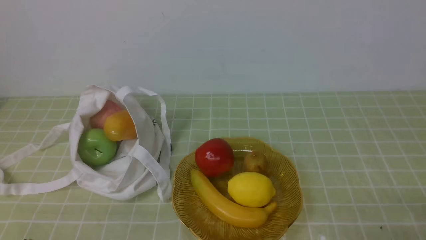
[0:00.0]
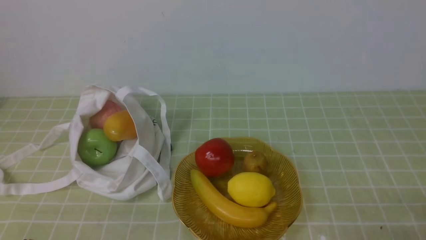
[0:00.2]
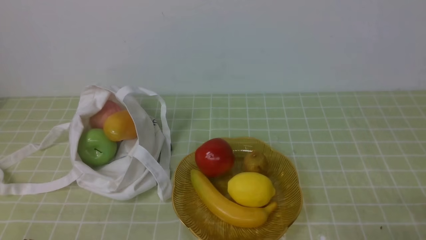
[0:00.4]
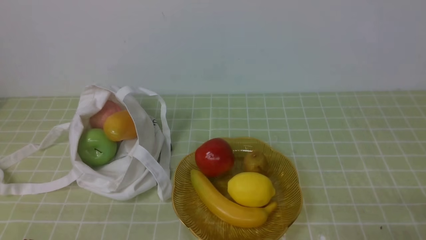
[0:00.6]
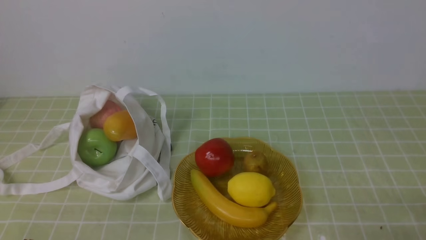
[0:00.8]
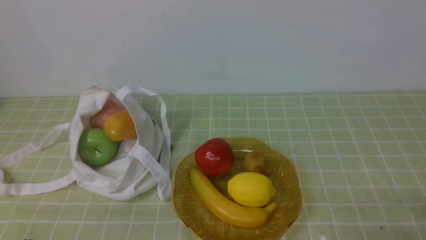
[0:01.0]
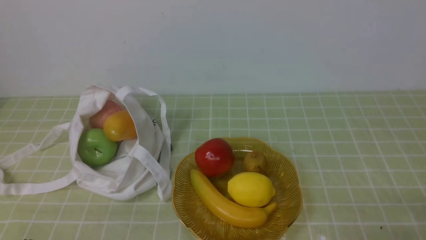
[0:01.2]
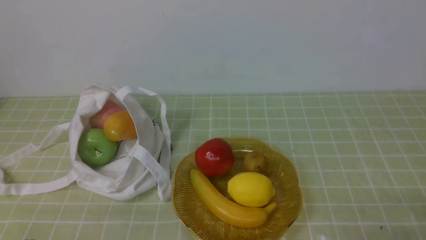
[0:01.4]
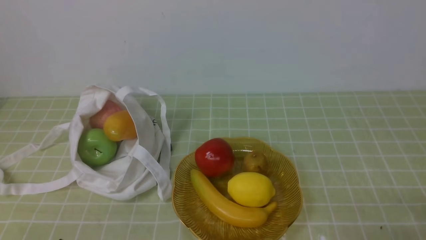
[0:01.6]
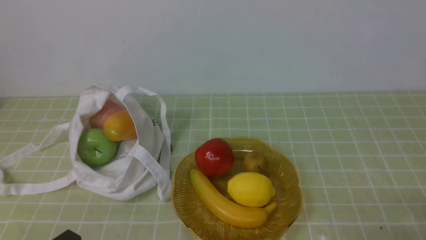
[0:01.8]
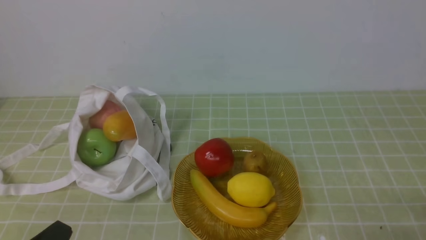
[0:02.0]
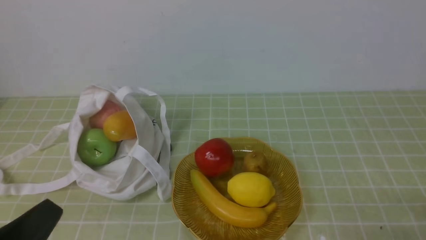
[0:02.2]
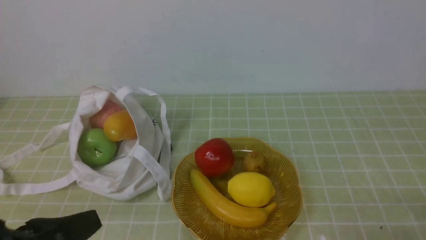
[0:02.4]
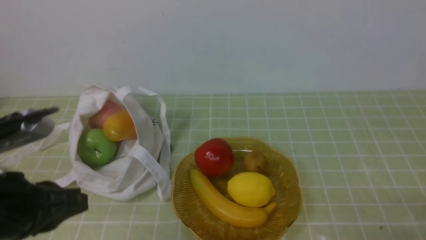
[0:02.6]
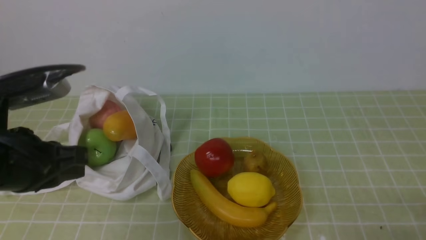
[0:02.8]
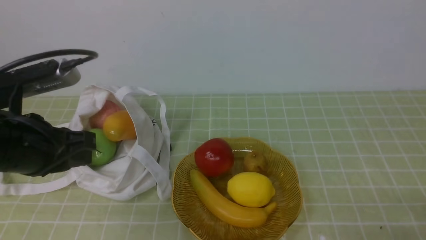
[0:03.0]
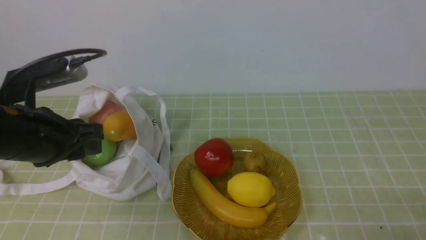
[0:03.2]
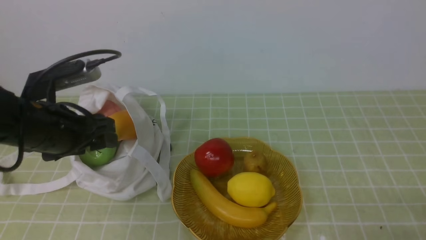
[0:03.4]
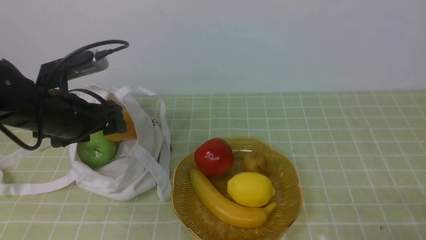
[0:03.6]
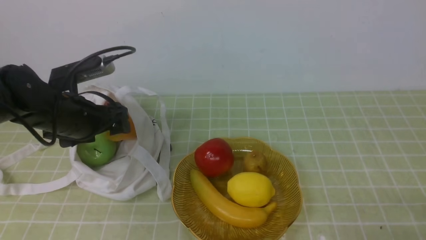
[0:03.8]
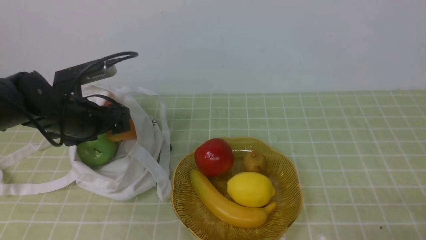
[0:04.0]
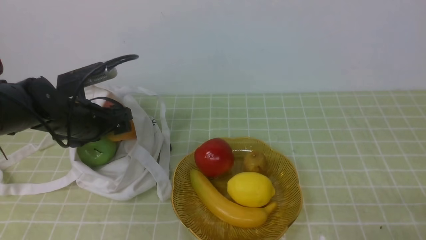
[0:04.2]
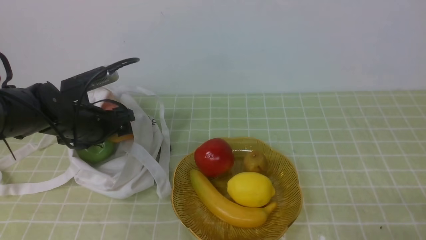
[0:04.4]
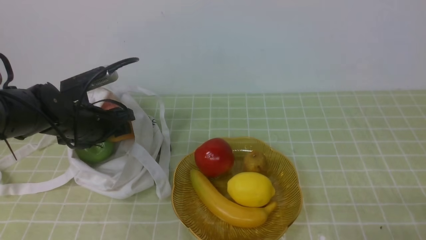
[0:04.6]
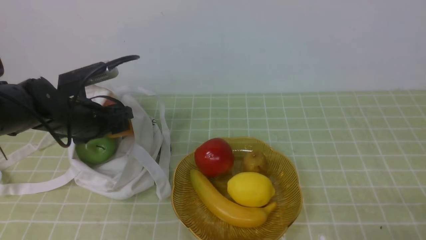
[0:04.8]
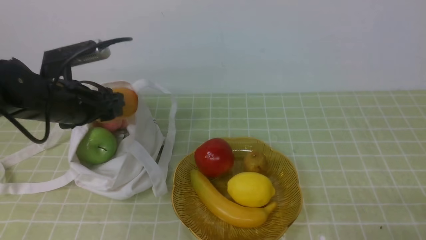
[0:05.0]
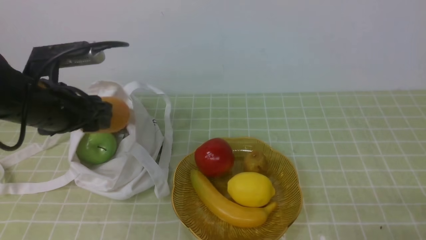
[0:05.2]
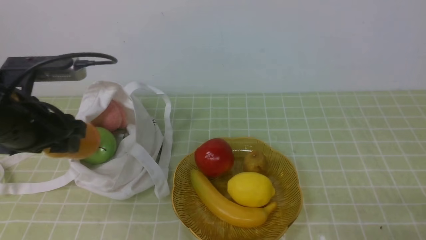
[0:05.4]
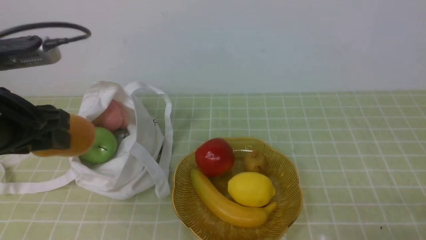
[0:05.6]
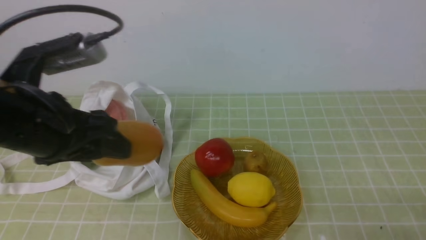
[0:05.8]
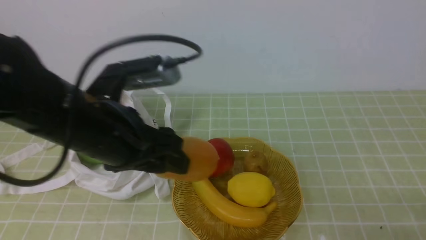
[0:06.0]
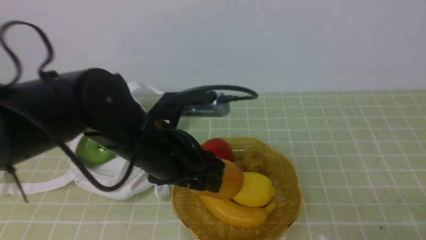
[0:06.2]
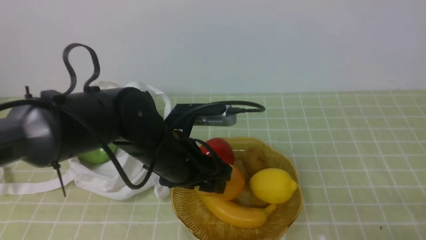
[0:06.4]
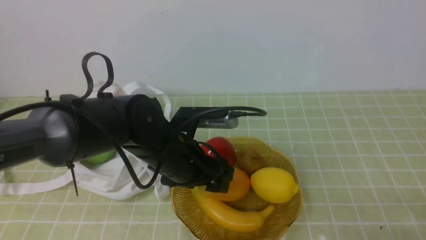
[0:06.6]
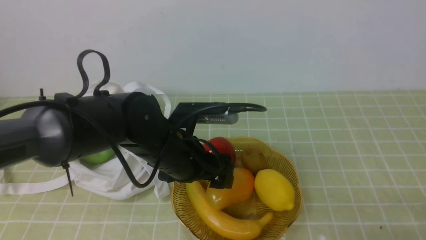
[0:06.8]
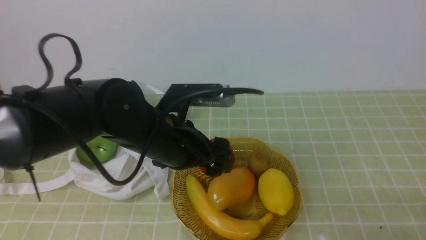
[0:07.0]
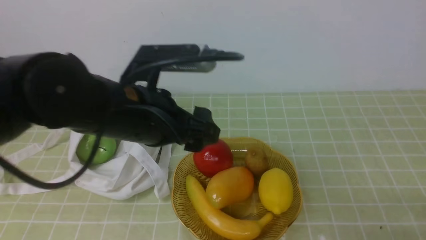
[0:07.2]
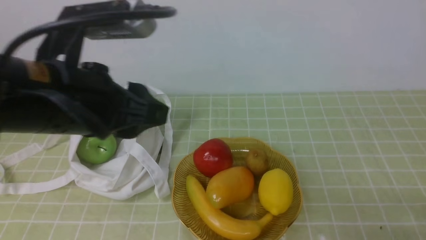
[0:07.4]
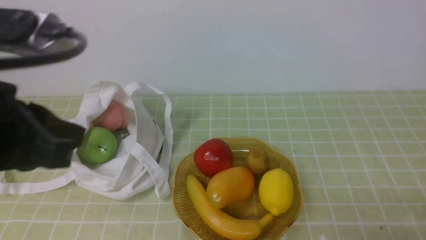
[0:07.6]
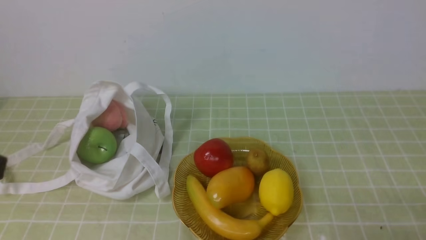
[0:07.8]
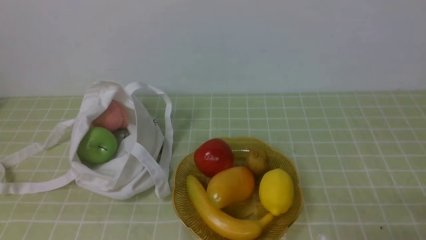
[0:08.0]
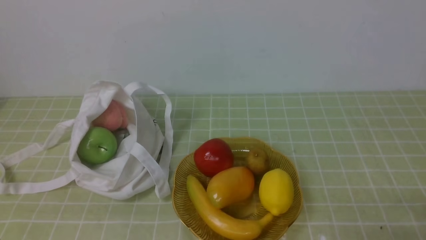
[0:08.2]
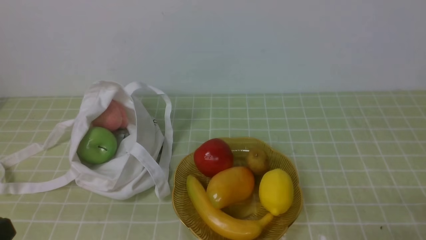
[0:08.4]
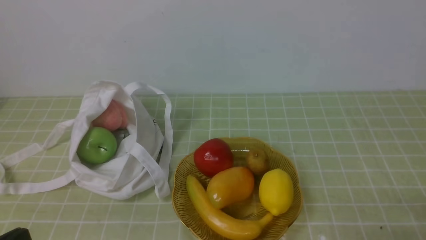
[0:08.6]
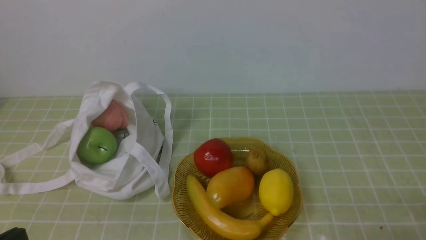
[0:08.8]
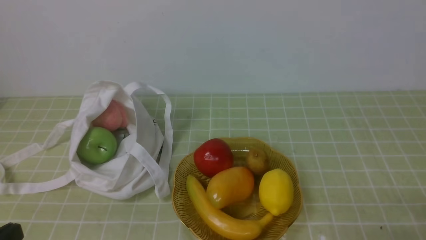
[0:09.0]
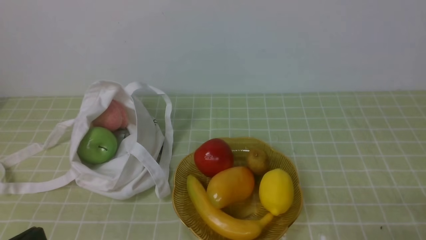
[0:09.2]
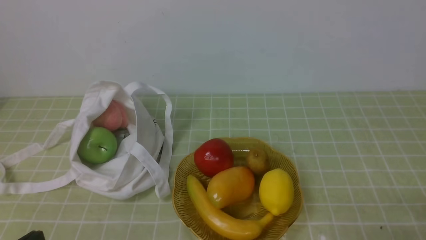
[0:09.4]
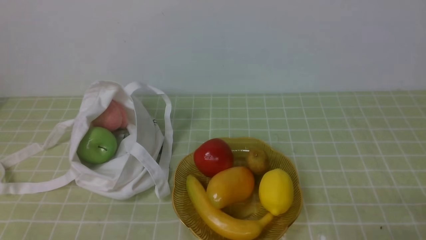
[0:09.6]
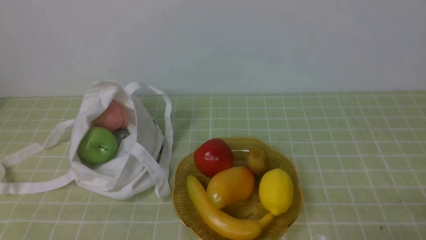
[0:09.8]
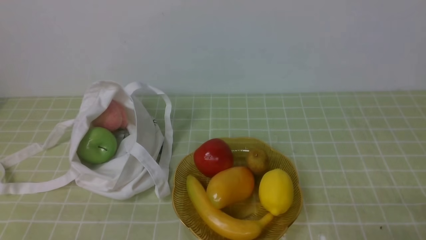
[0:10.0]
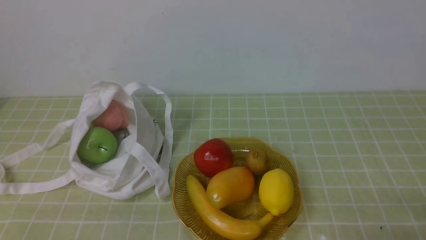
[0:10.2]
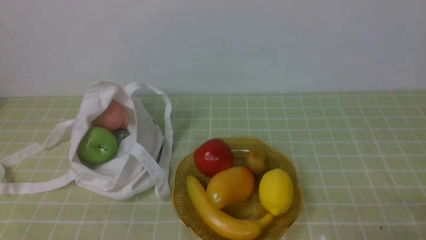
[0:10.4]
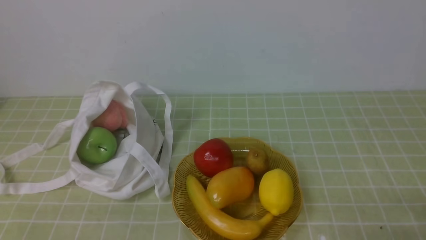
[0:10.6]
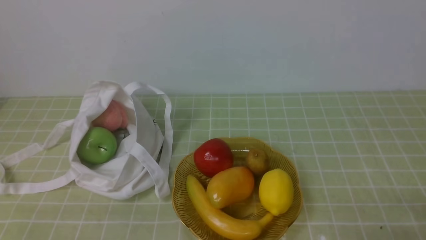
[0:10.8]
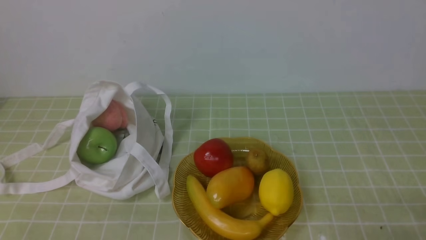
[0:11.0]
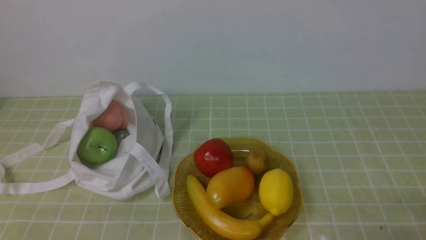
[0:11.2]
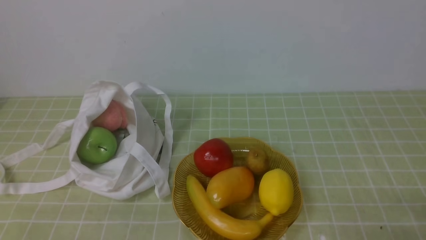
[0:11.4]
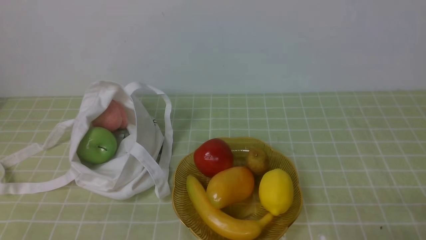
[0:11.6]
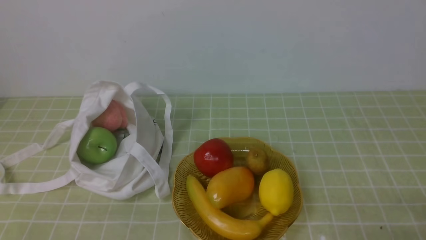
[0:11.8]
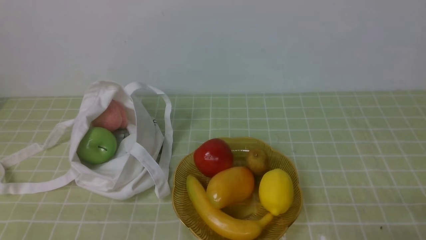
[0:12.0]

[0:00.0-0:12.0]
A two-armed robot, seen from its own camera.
Step, 0:00.0 to 0:05.0: use the left arm to grab a mango from the bag.
Step, 0:05.2 to 0:06.8: use the left arm to put the mango into the empty plate on the right.
0:01.6 to 0:03.0: The left gripper is displaced forward and upward by about 20 cm.
0:03.0 to 0:04.4: The left gripper is displaced forward and downward by approximately 20 cm, and opens its fingers.
0:04.4 to 0:06.0: The left gripper heads backward, upward and to the right, covering roughly 20 cm.
0:06.0 to 0:07.6: The left gripper travels upward and backward by roughly 10 cm, and closes.
0:07.6 to 0:09.0: The left gripper goes roughly 20 cm downward, backward and to the left.
0:10.4 to 0:12.0: The two grippers keep their place.
